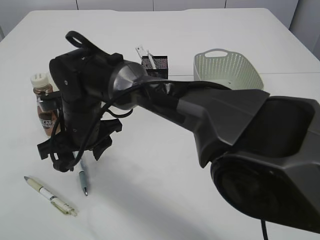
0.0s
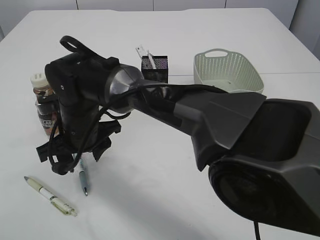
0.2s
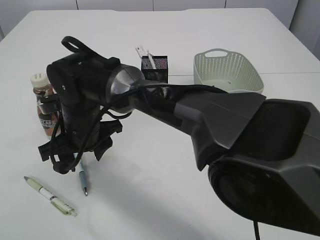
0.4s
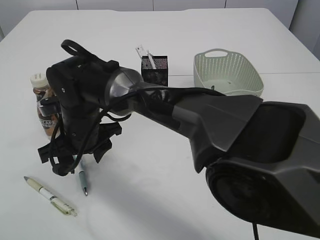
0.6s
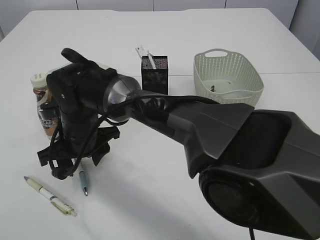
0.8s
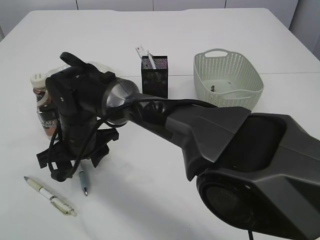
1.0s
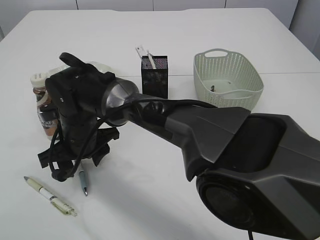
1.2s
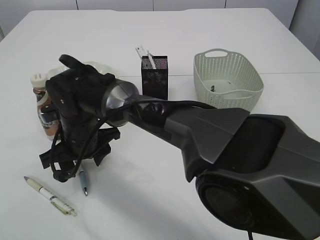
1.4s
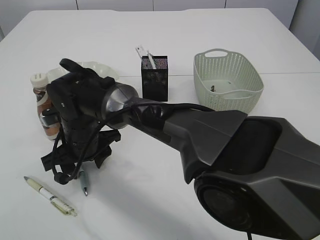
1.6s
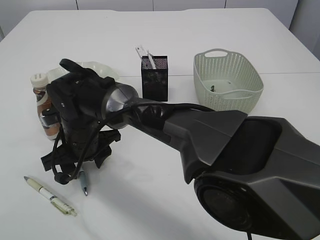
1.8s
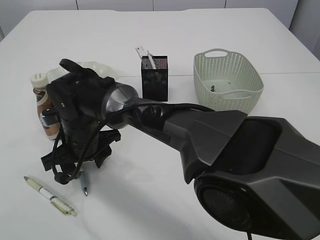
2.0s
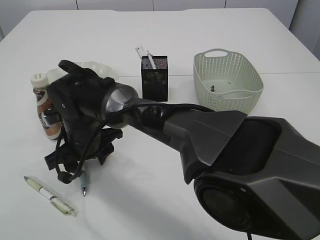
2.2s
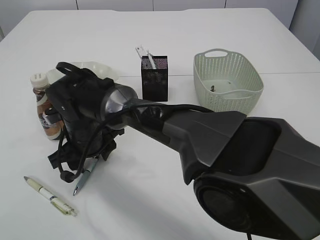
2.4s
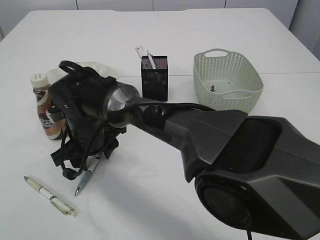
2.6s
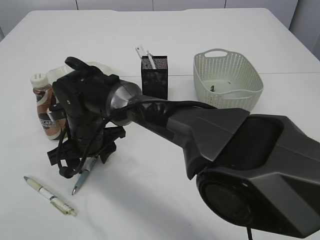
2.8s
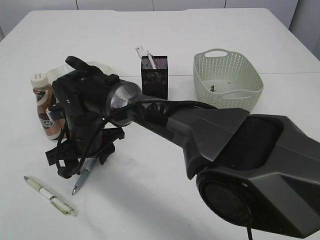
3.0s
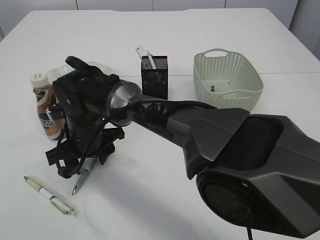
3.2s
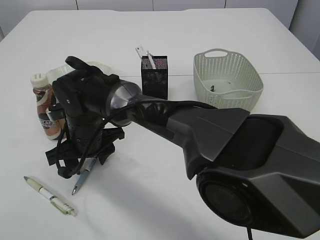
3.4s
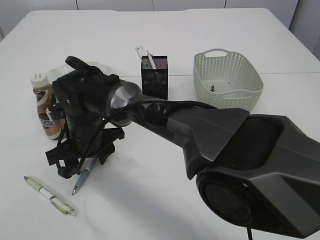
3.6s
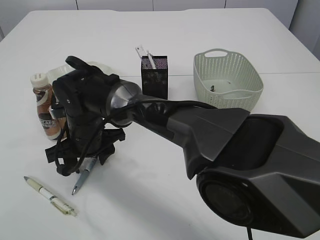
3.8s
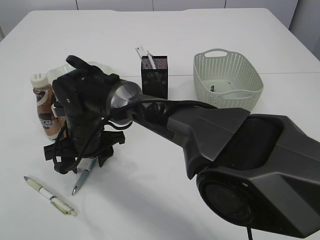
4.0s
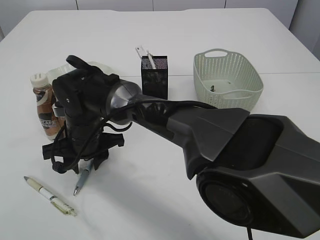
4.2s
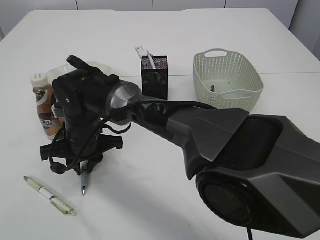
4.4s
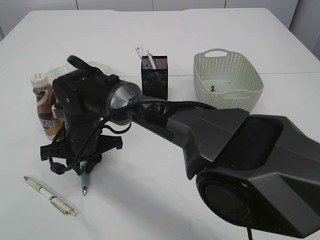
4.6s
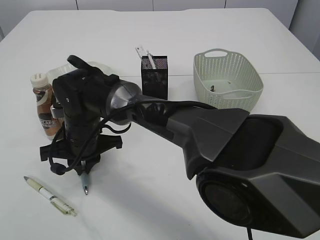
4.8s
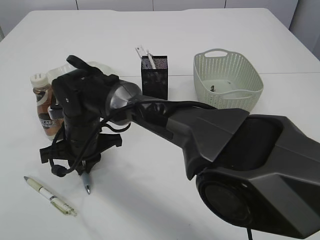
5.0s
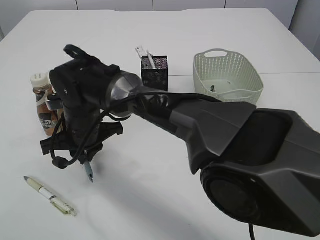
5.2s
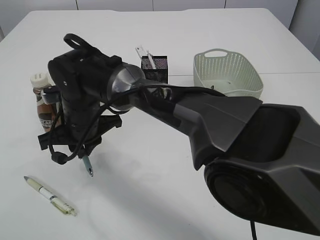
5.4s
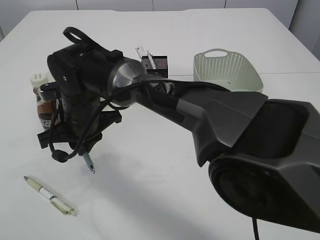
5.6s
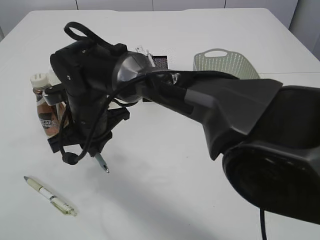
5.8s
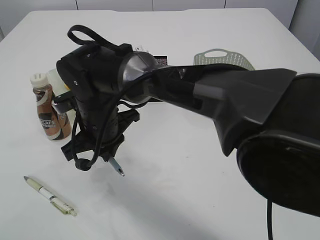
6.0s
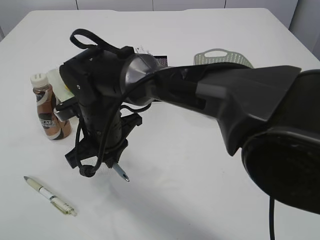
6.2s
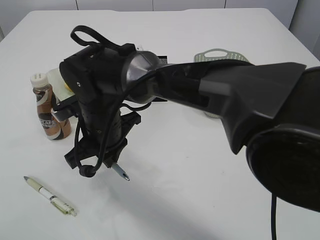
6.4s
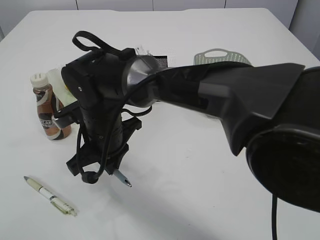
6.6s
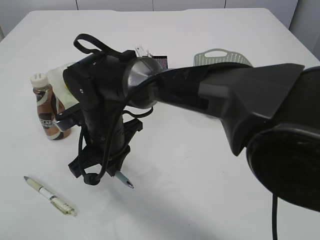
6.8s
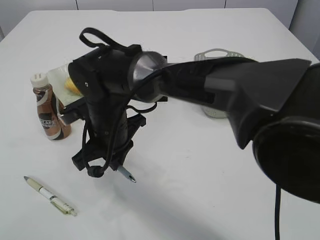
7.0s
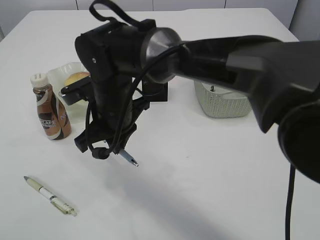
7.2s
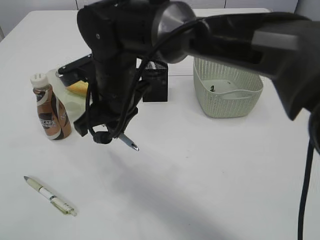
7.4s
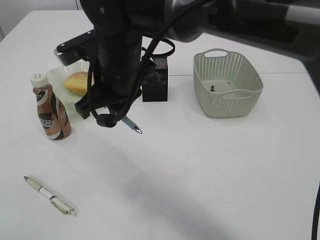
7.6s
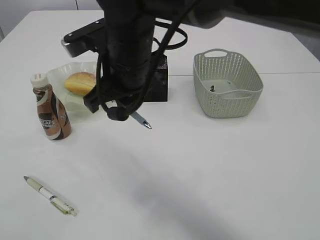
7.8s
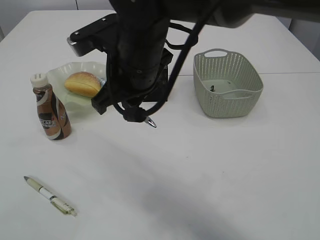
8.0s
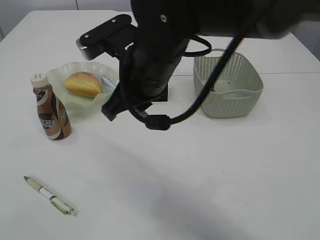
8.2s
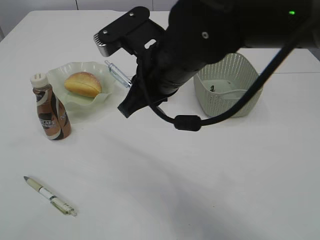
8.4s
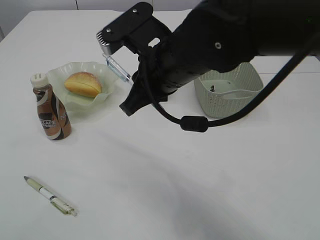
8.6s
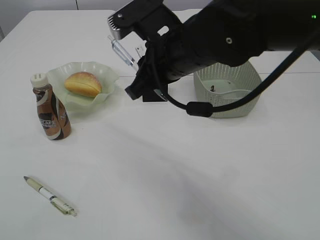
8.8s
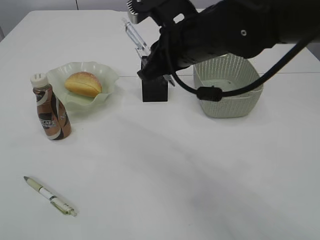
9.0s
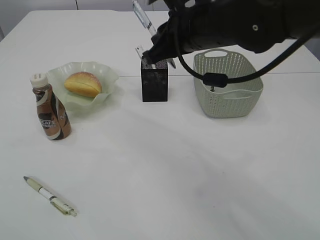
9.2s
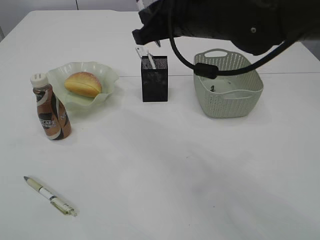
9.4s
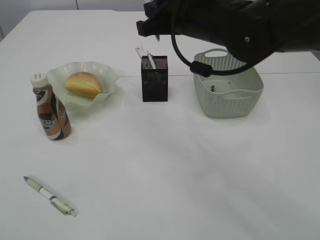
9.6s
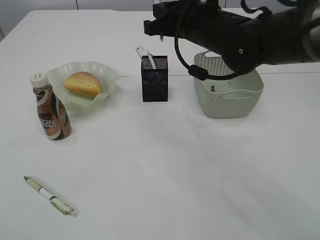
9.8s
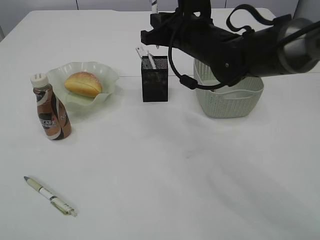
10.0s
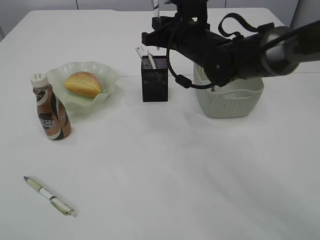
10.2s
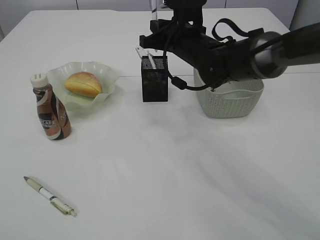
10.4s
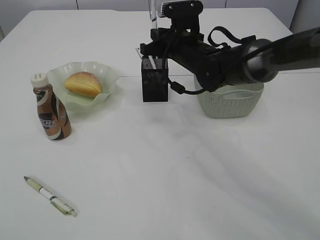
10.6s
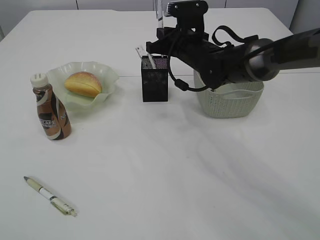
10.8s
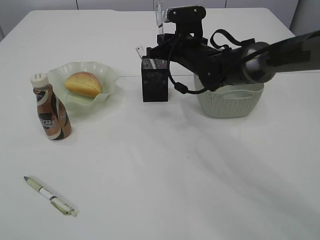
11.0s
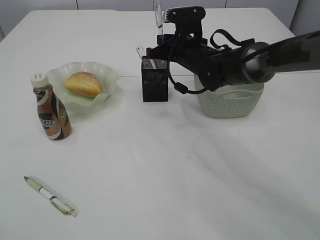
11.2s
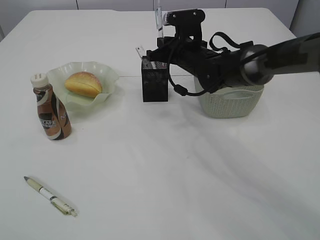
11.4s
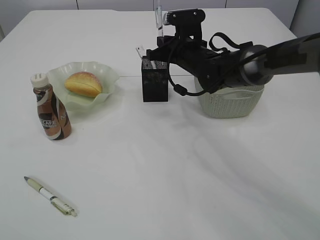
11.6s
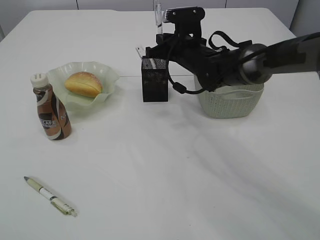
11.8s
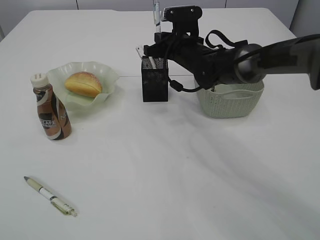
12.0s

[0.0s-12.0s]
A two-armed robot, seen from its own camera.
Step, 0.0s to 5.6s: Pick up the pen with right arm.
1.6s to 3.0s: The grippers stay close to where they were, moving slightly.
3.0s to 4.4s: The right gripper closes.
4.4s to 6.0s: The right gripper moves some 5 cm.
6.0s to 7.6s: The right gripper goes approximately 10 cm upward.
7.6s to 9.0s: The right gripper is displaced to the right by about 10 cm.
9.0s to 10.4s: The right gripper shifts roughly 15 cm forward and downward.
10.4s to 12.0s: The right gripper changes place by roughly 5 cm.

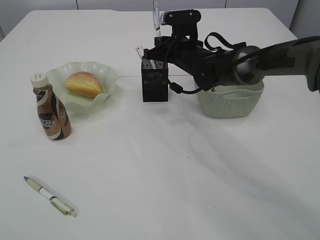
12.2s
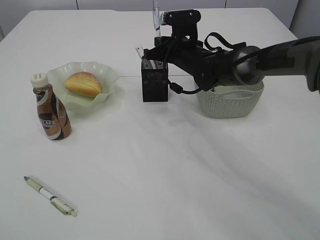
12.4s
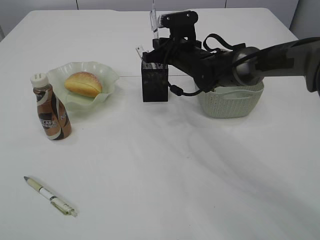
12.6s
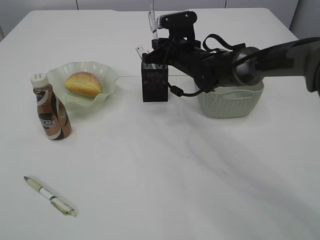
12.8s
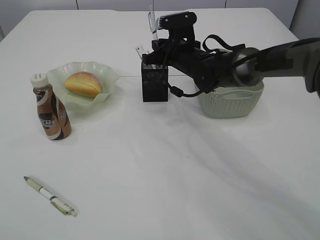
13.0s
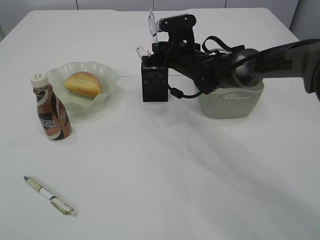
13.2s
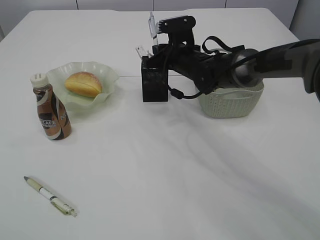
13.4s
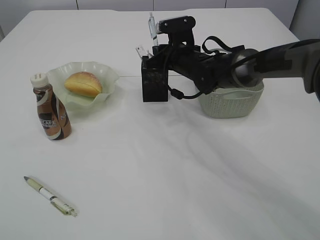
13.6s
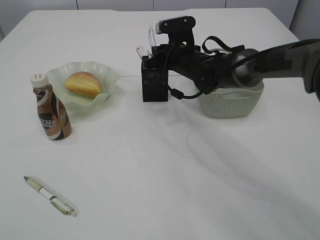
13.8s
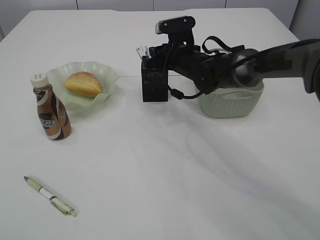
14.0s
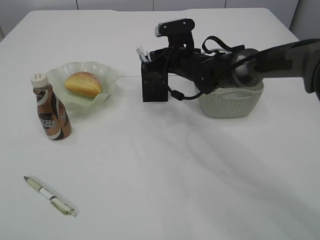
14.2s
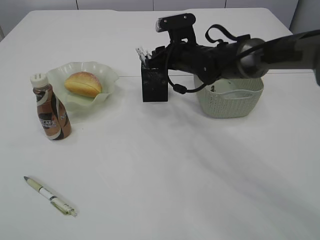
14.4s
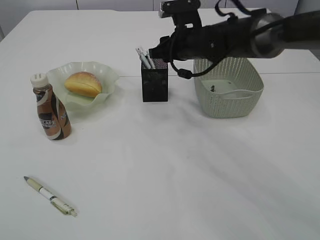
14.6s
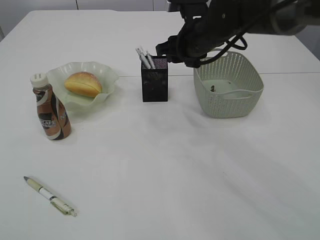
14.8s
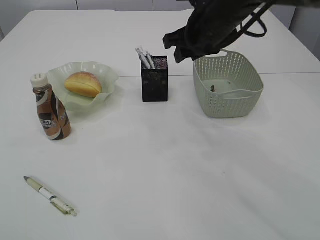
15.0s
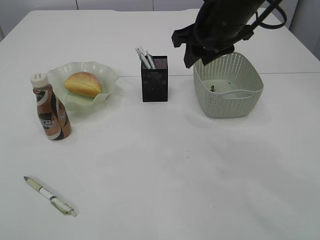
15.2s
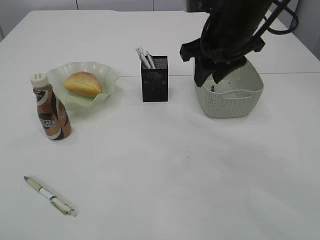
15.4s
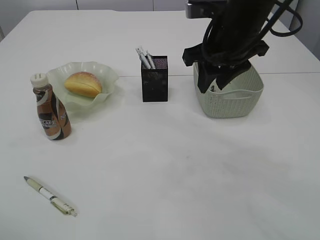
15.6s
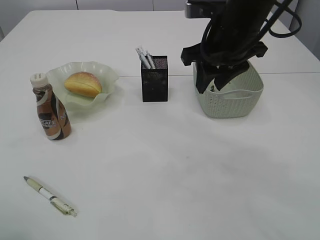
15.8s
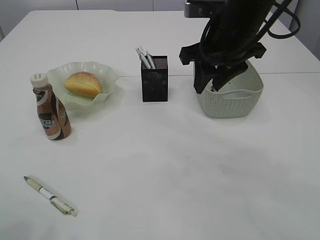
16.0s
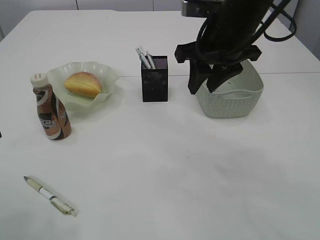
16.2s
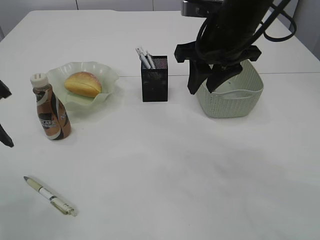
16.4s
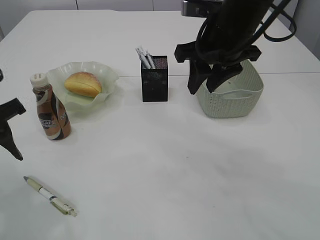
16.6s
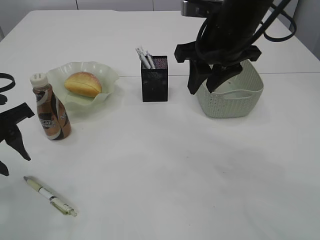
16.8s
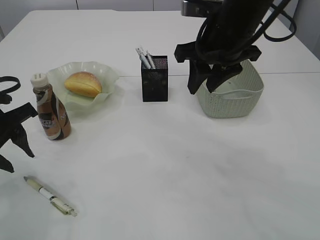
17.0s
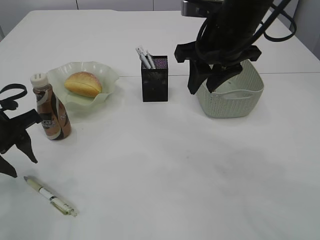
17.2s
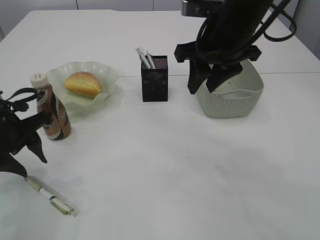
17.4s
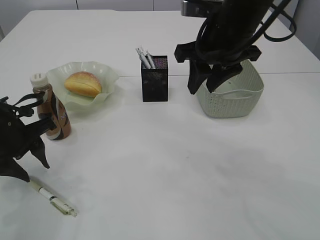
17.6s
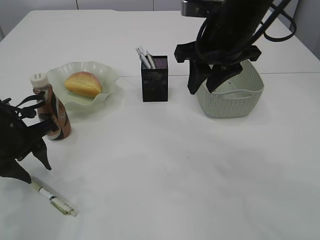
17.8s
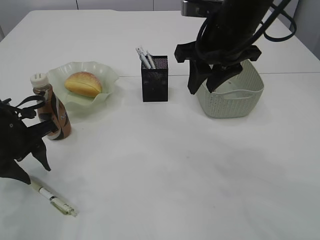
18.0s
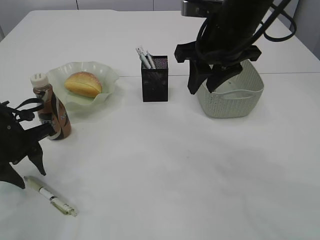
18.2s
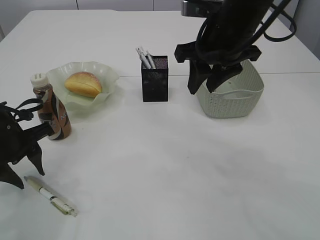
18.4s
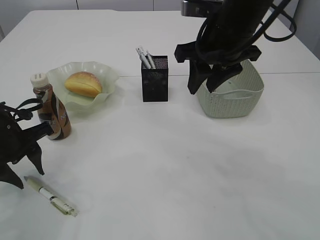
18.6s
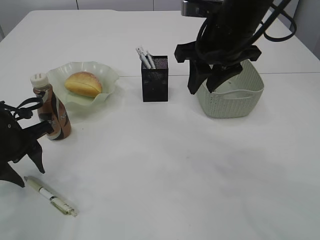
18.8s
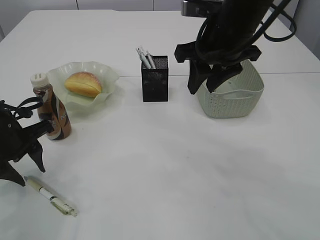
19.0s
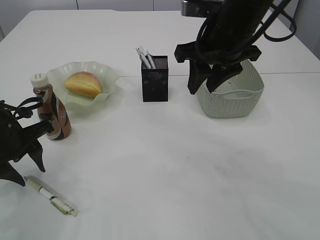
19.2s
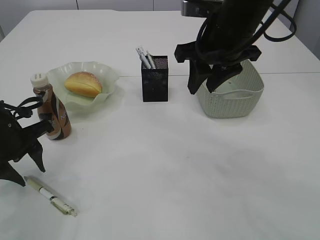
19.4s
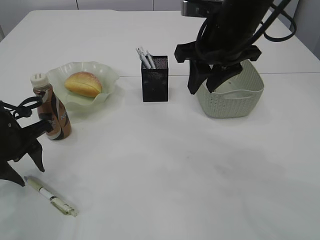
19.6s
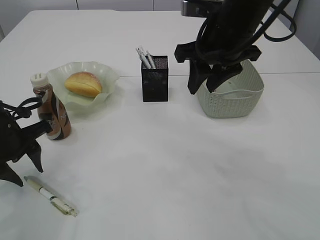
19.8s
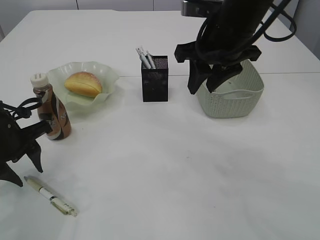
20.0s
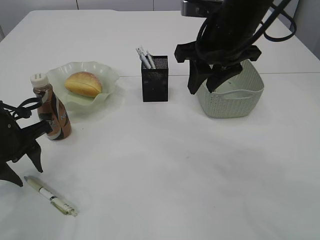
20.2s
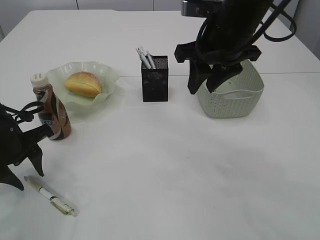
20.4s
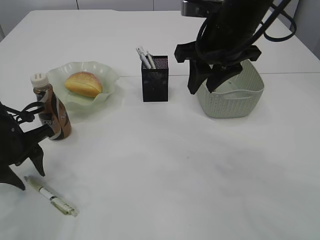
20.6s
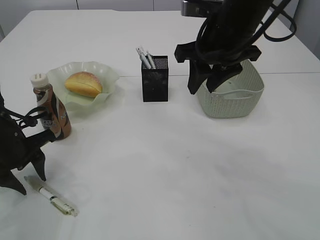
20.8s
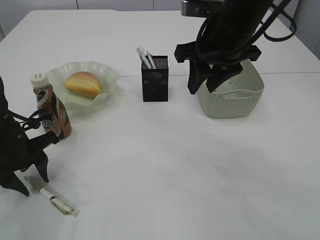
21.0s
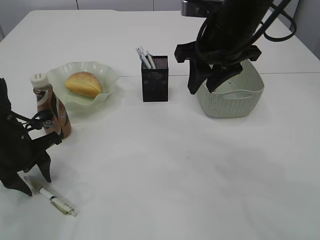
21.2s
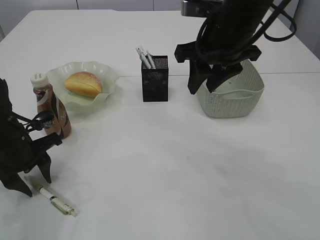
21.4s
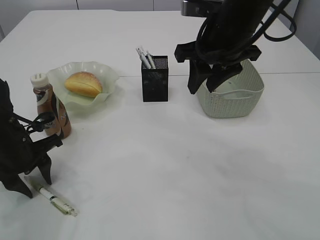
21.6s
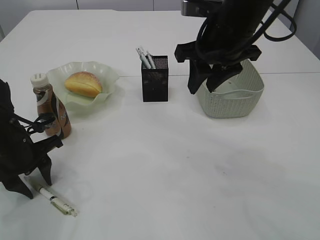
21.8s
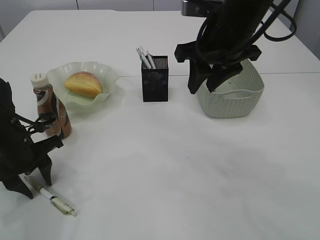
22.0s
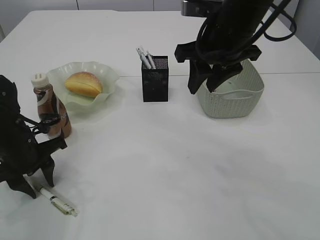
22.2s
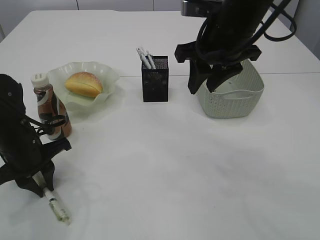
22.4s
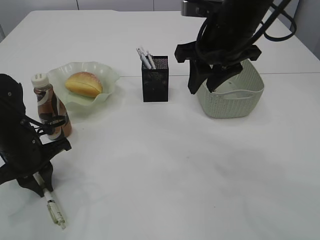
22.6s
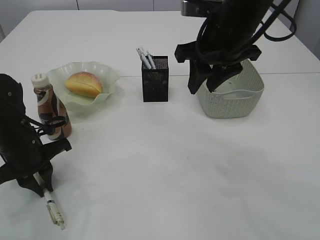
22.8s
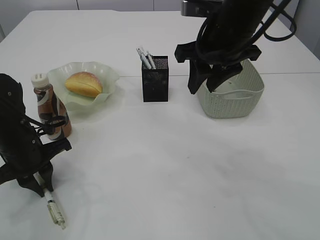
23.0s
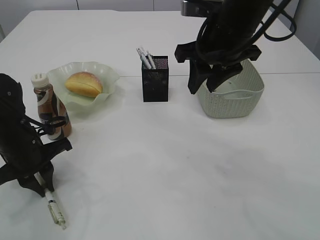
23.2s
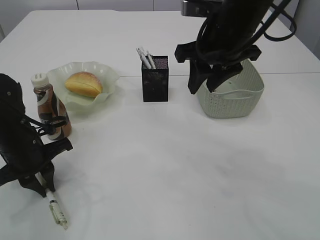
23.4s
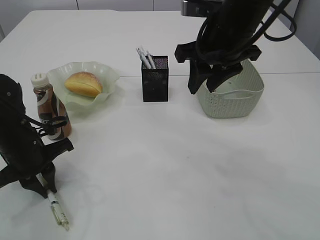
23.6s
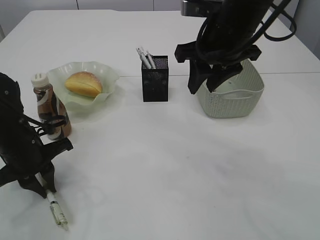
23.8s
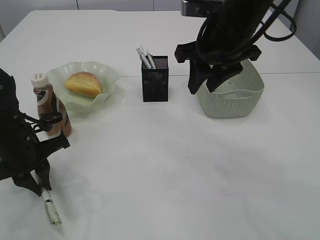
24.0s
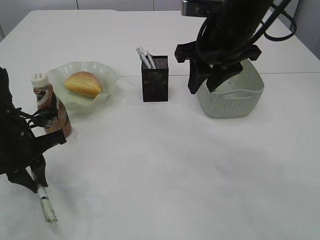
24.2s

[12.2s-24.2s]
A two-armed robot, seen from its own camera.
Step, 12.2s to 15.0s: Place the pen into the pen holder.
12.2s to 13.8s: The grippers make only small movements.
13.8s to 15.2s: The right gripper travels upward and backward by some 15 cm.
15.2s to 16.6s: The left gripper heads forward and downward, covering approximately 20 cm.
16.6s to 18.2s: The left gripper moves downward, roughly 5 cm.
18.2s to 21.2s: The grippers make only small movements.
21.2s to 22.6s: The left gripper closes its fingers.
22.6s to 24.2s: There are only small adjustments of the grippers.
